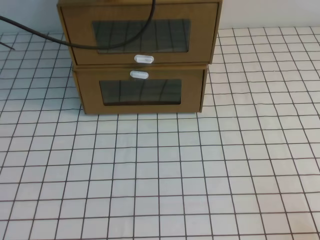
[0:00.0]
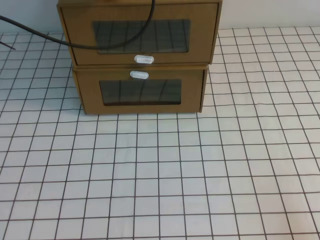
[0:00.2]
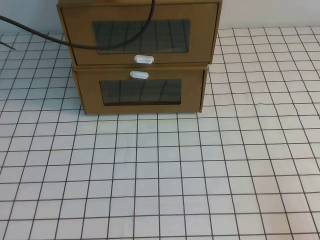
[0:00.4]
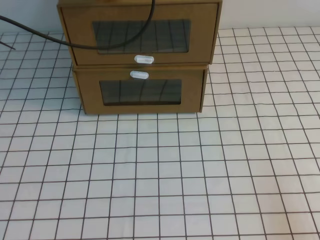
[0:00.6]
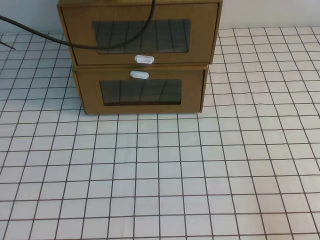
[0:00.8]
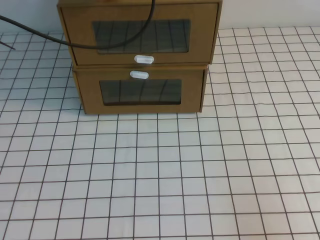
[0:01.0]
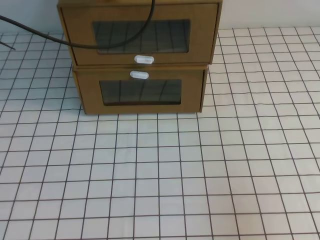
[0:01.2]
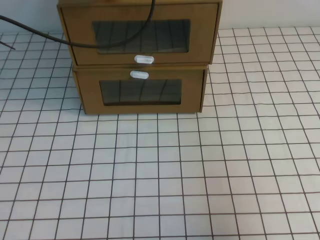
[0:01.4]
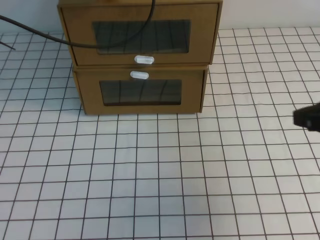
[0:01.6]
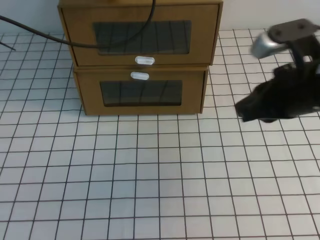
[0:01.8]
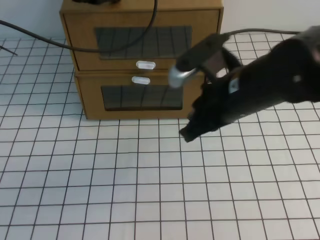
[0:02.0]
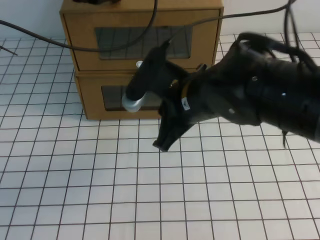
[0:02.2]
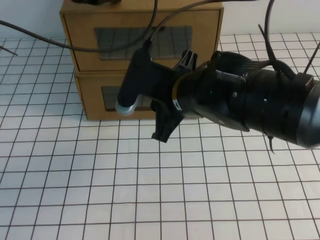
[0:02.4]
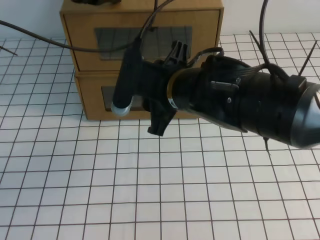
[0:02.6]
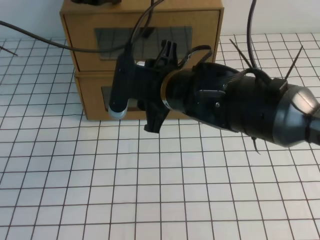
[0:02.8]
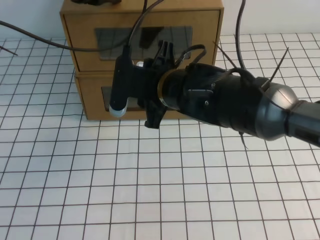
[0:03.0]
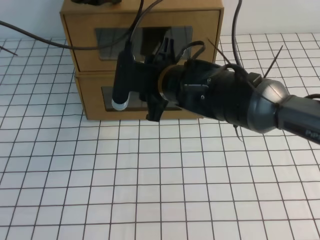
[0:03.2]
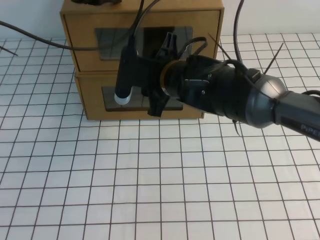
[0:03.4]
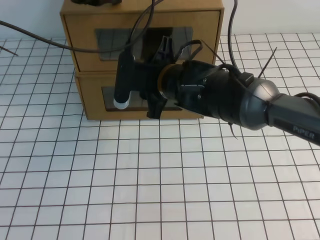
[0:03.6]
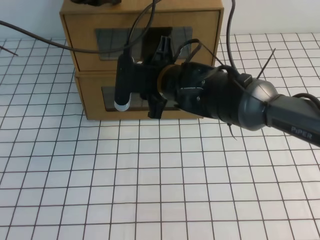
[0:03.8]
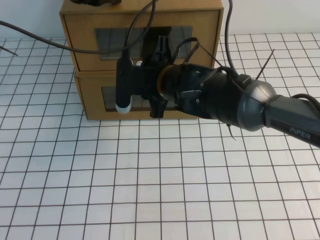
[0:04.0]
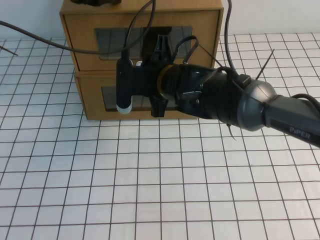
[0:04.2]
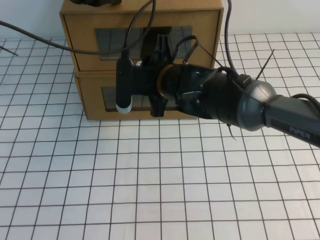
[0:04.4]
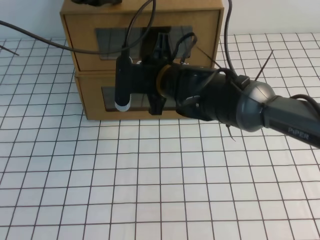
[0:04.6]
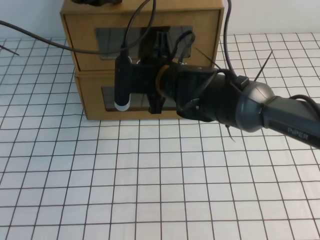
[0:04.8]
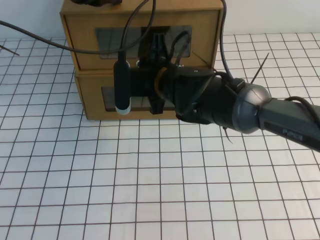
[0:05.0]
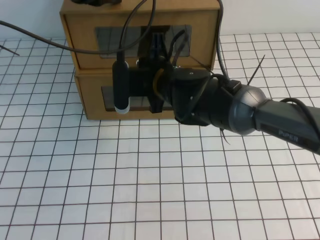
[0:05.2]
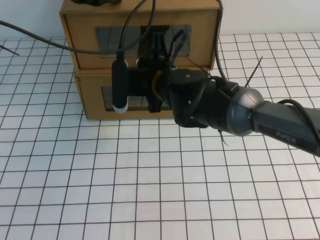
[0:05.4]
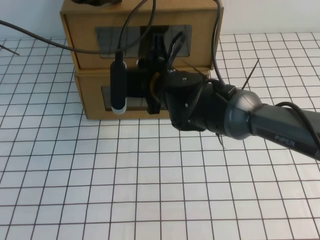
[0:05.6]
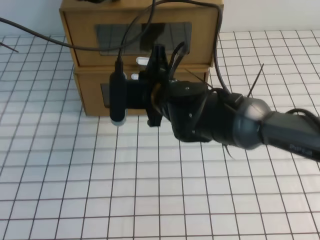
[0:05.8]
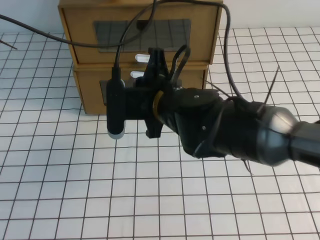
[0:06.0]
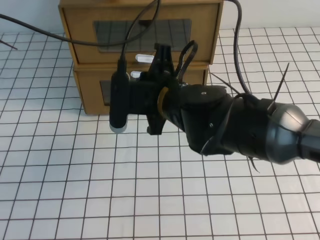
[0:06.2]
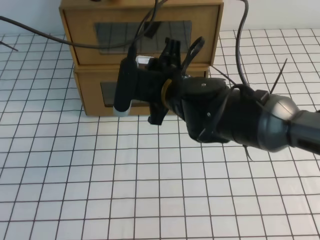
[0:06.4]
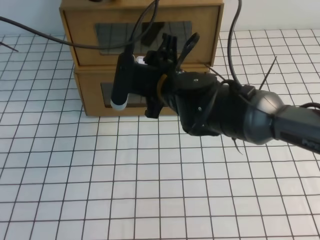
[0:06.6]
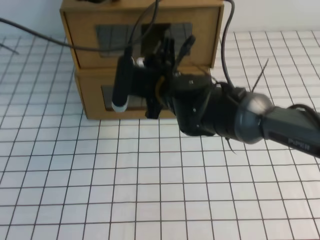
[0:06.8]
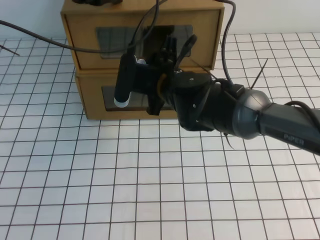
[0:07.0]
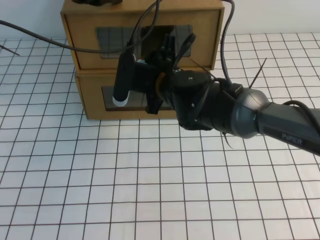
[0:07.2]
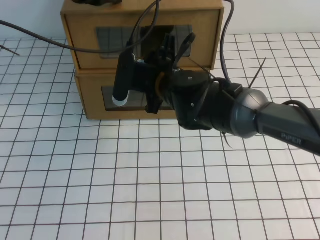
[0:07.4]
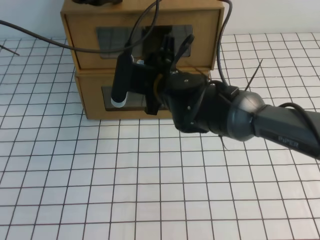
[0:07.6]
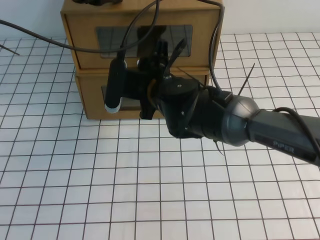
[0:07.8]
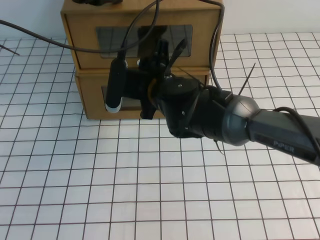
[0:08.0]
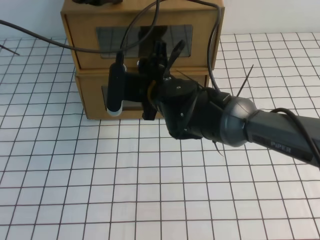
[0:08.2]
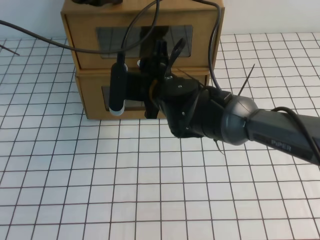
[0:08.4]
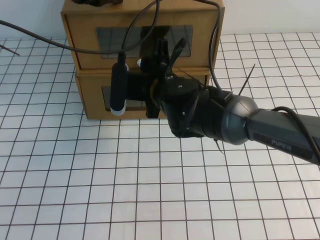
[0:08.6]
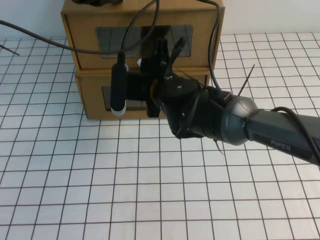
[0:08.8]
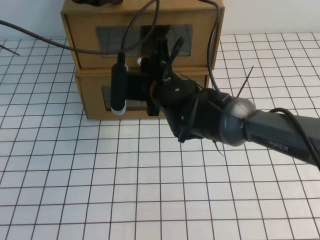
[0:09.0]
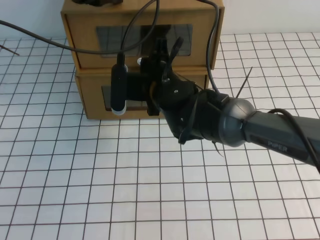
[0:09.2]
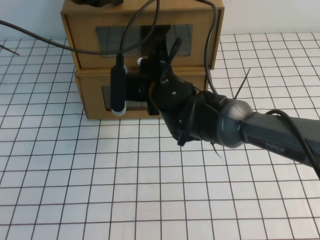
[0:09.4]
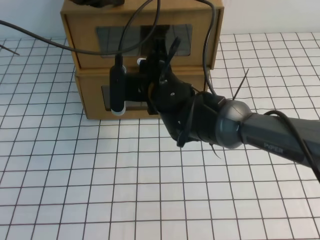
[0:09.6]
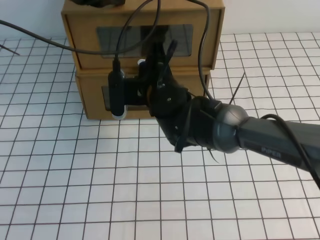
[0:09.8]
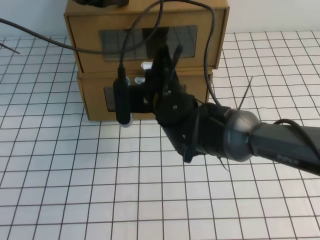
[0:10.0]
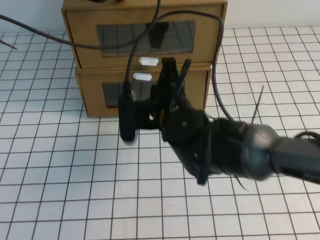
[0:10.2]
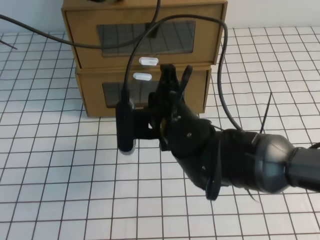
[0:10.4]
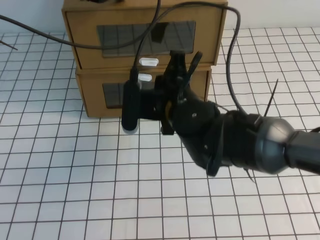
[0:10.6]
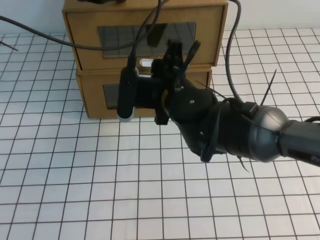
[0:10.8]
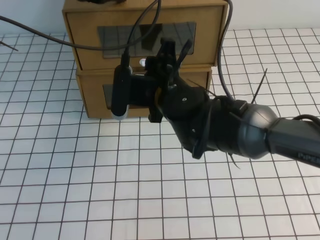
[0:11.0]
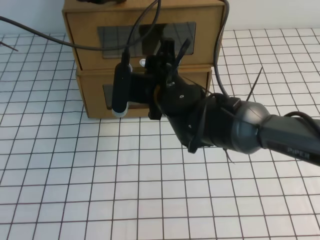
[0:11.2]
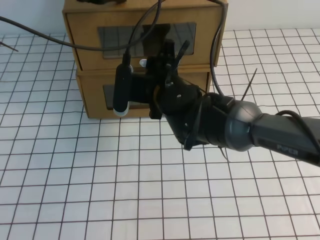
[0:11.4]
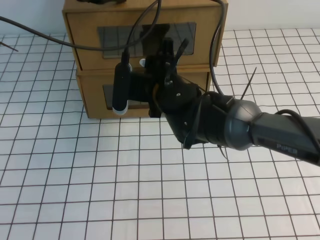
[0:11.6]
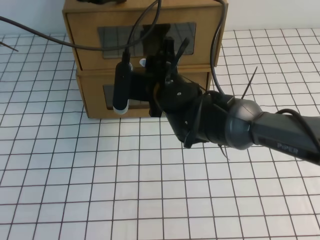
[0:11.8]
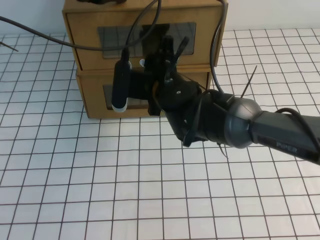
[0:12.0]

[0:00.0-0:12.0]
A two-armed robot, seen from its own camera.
Task of the whole recording: open the shoebox on the white tablecloth.
0:00.0 to 0:01.6: The right gripper goes roughly 15 cm upward and forward.
0:01.6 to 0:03.0: The right gripper moves to the left and forward, approximately 30 cm, and opens up.
0:03.0 to 0:04.4: The right gripper shifts roughly 5 cm forward.
0:04.4 to 0:06.0: The right gripper closes.
0:06.0 to 0:07.6: The right gripper opens its fingers.
0:07.6 to 0:09.0: The grippers stay close to where they were, moving slightly.
0:09.0 to 0:10.4: The right gripper moves backward, roughly 5 cm, and closes its fingers.
0:10.4 to 0:12.0: The right gripper moves forward, roughly 5 cm, and opens up.

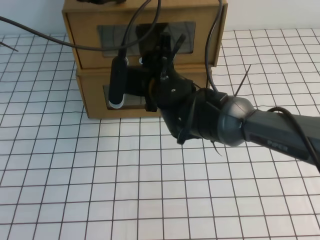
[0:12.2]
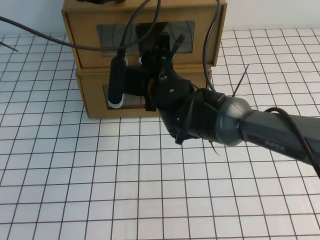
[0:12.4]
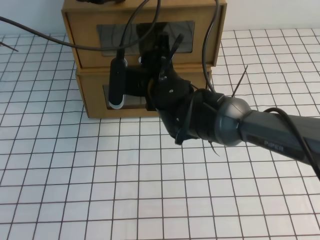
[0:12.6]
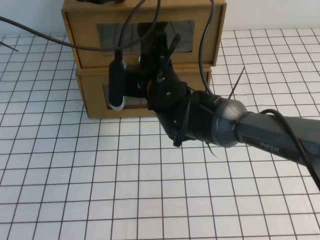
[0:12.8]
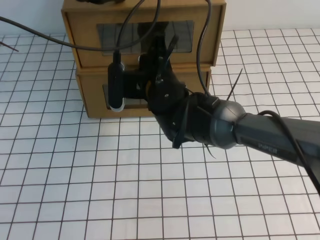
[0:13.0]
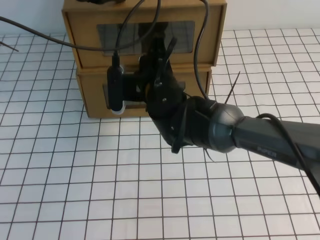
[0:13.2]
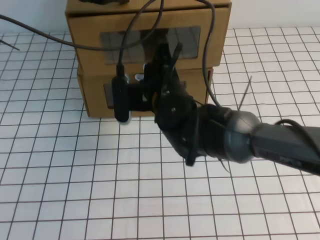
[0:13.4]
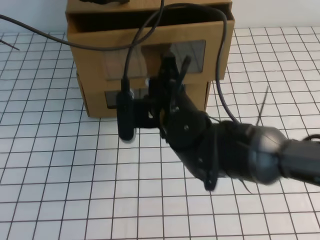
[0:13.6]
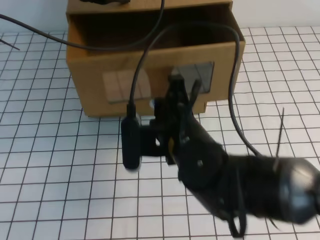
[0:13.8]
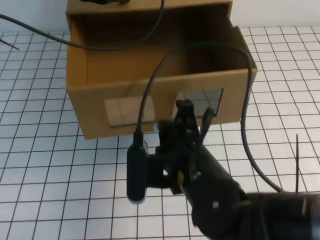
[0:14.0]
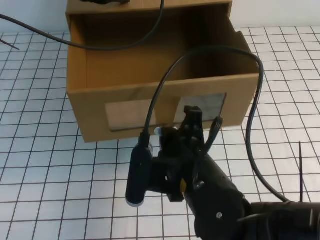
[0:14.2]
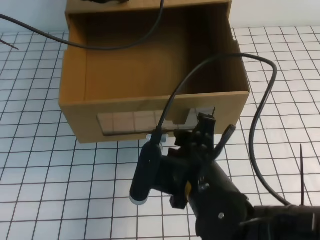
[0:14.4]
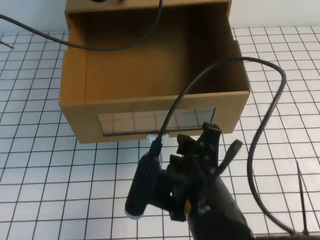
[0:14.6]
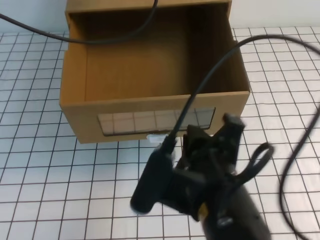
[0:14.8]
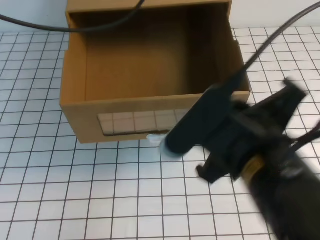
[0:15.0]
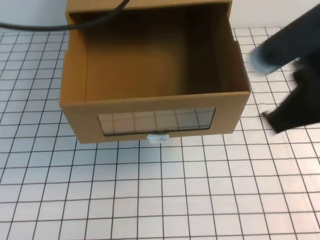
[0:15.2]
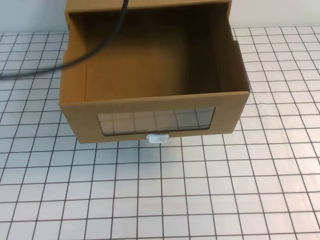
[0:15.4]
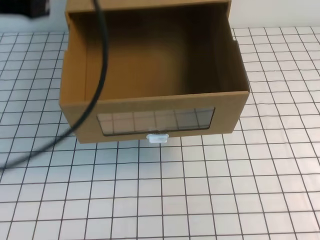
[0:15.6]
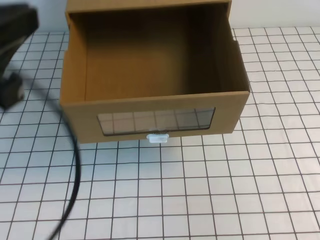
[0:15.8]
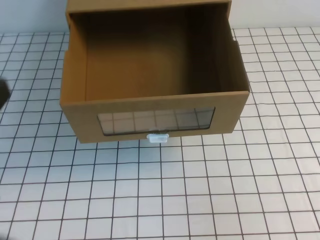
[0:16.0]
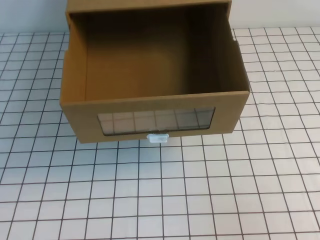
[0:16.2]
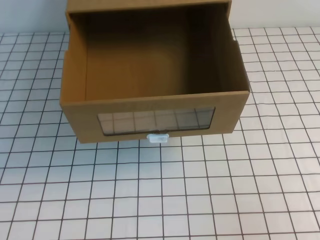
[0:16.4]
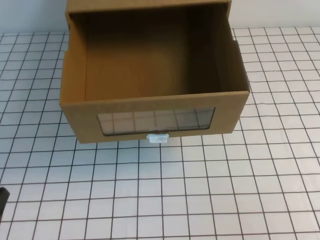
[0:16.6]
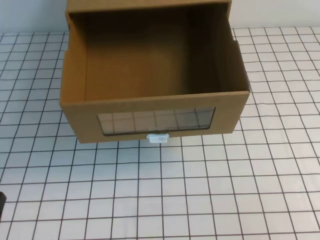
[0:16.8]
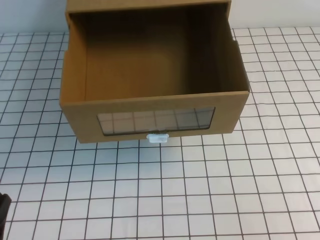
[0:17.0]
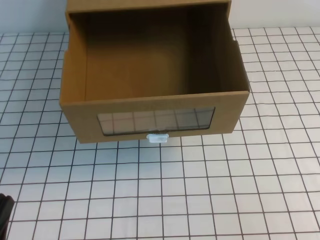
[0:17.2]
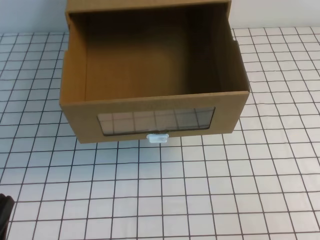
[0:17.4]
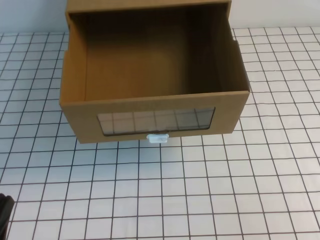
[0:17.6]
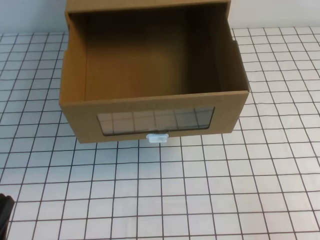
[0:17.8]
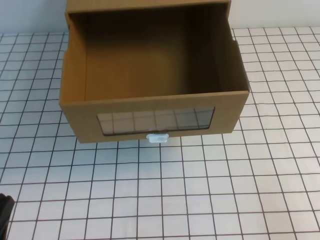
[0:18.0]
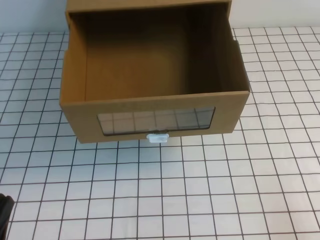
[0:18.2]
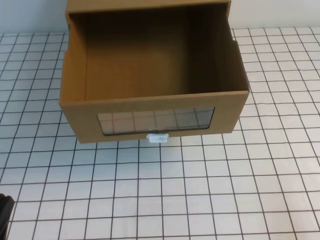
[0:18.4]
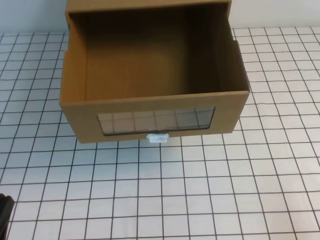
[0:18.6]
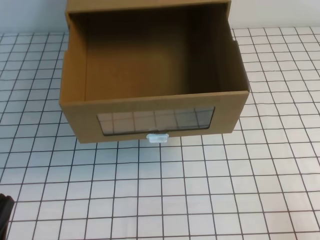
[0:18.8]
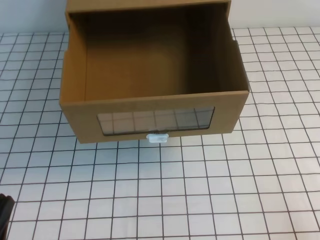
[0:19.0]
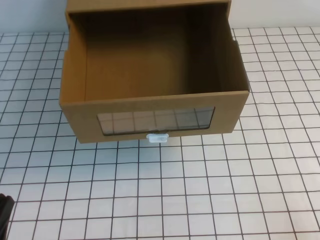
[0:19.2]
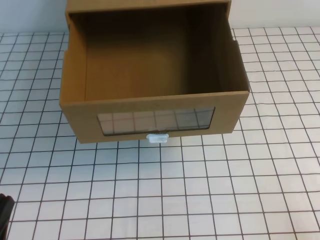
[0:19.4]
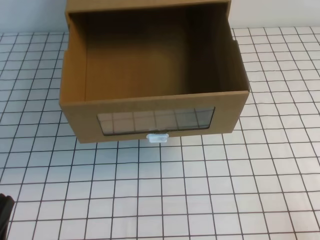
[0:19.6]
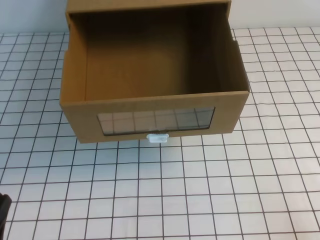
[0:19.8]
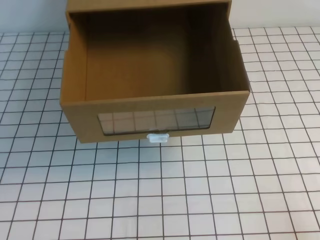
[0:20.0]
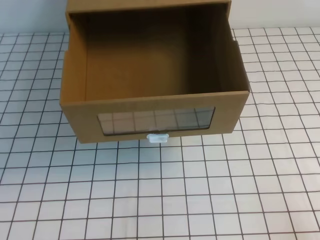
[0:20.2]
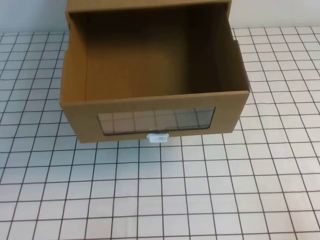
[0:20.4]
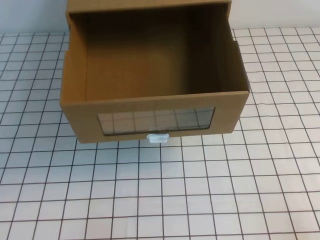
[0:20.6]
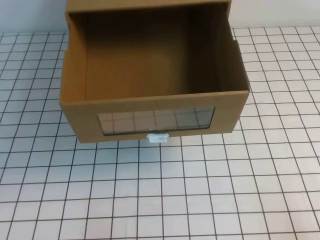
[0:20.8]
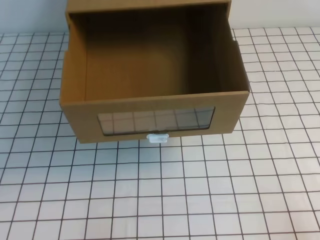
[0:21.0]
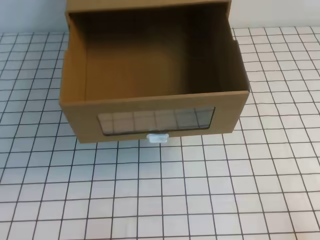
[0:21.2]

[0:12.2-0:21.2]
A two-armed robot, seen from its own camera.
Task of the whole recording: open the shoebox on the white tablecloth.
Step, 0:12.2 to 0:21.2: Open the shoe box.
0:12.2 to 0:13.8: The right gripper moves backward, approximately 5 cm, and closes up.
0:13.8 to 0:15.2: The right gripper travels backward, upward and to the right by roughly 20 cm, and opens, then closes once more; the left gripper goes some 10 cm upward and backward.
0:15.2 to 0:16.6: The left gripper travels backward and downward by some 35 cm. The right gripper travels to the right and backward by some 20 cm.

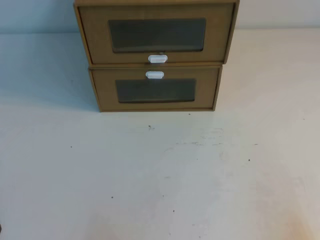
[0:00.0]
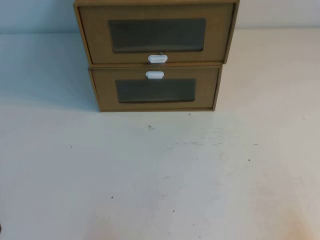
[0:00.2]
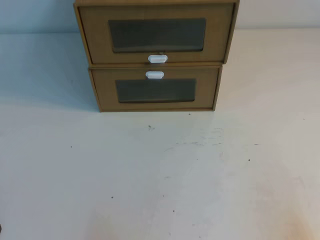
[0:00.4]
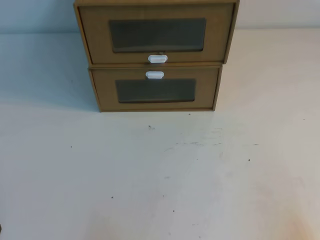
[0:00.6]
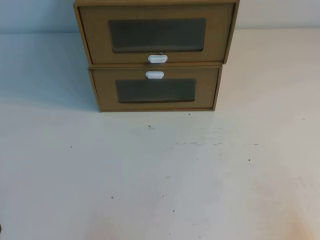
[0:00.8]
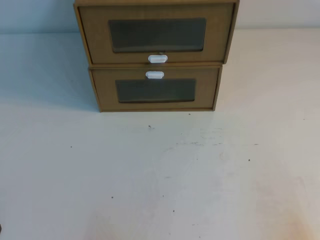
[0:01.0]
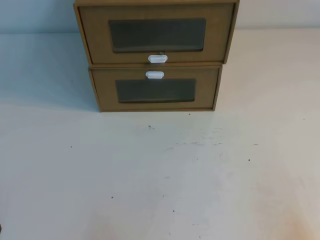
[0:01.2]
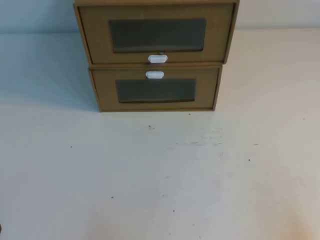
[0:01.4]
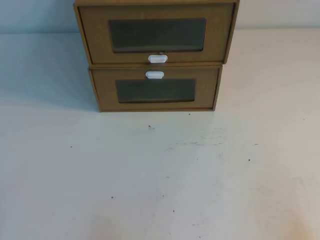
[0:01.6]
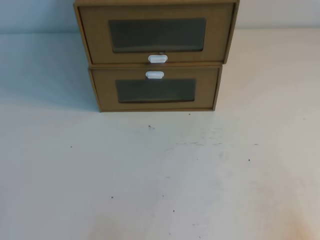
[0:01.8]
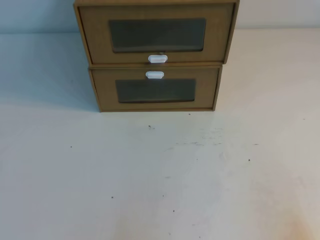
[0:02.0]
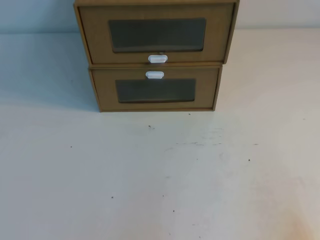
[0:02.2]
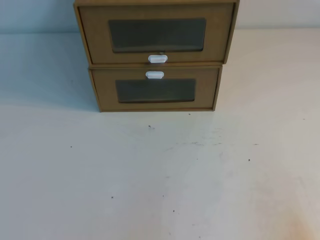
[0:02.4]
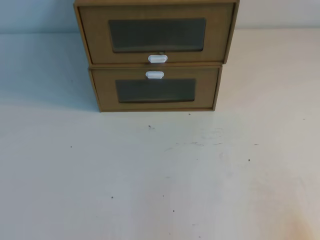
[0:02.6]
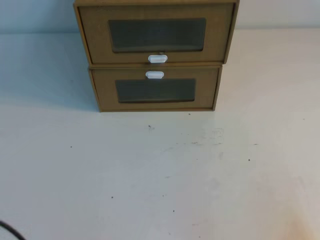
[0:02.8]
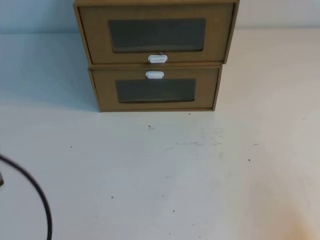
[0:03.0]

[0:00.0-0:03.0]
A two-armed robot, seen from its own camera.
Task of the whole recording: open the shoebox on the table.
0:00.0 to 0:01.6: Both grippers stay put.
0:01.6 to 0:03.0: The left gripper moves upward, approximately 15 cm.
